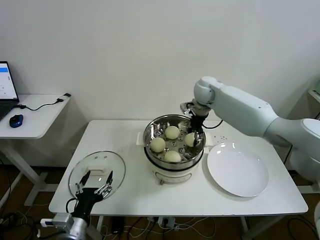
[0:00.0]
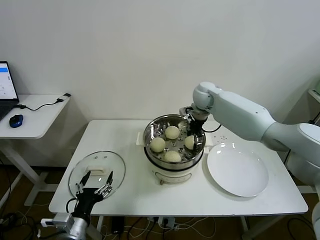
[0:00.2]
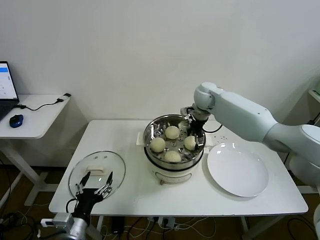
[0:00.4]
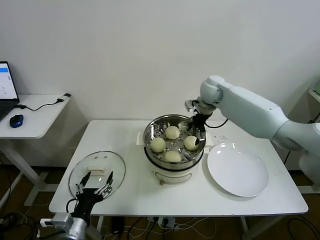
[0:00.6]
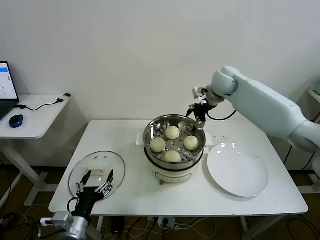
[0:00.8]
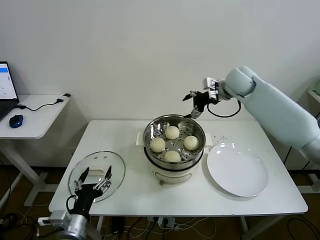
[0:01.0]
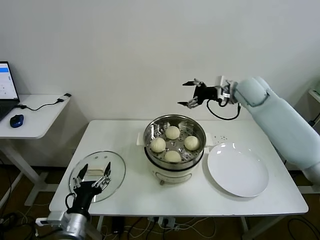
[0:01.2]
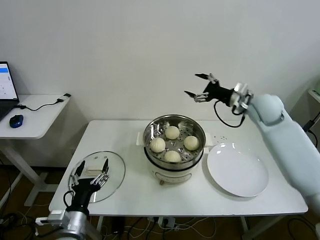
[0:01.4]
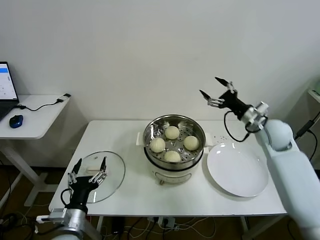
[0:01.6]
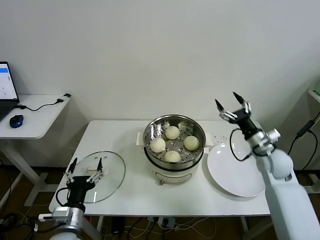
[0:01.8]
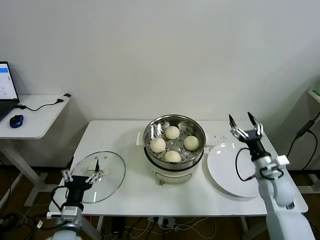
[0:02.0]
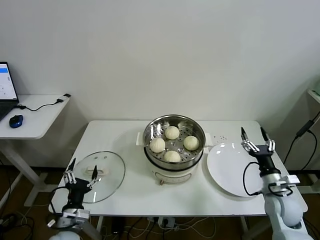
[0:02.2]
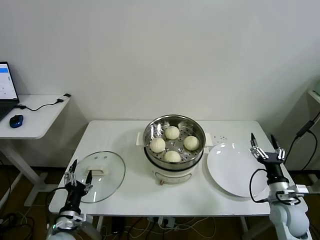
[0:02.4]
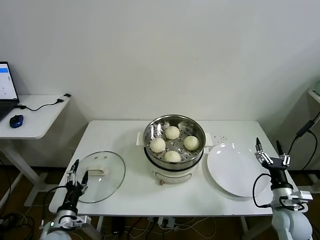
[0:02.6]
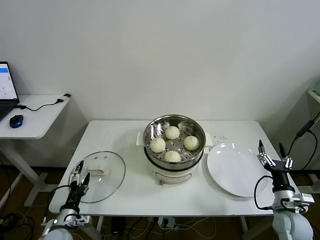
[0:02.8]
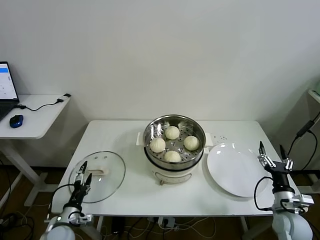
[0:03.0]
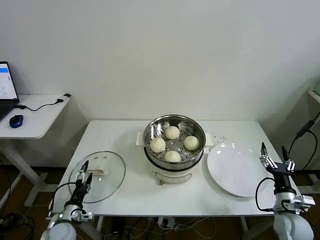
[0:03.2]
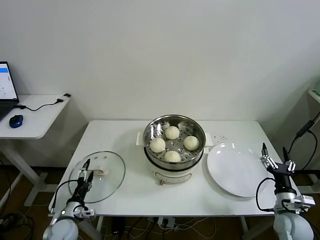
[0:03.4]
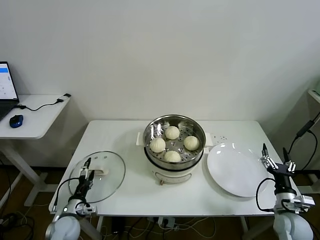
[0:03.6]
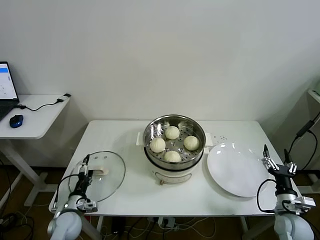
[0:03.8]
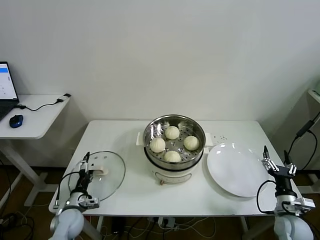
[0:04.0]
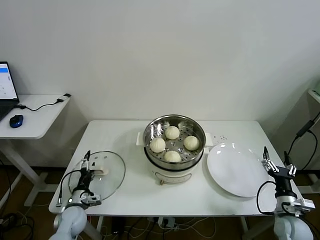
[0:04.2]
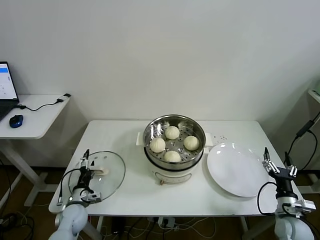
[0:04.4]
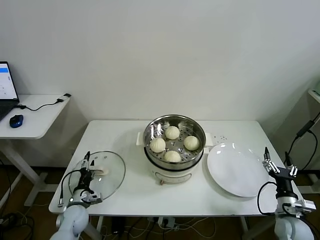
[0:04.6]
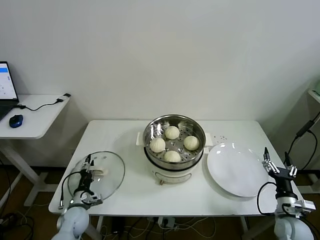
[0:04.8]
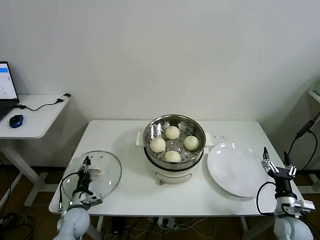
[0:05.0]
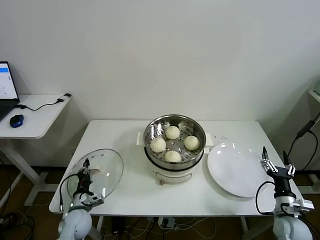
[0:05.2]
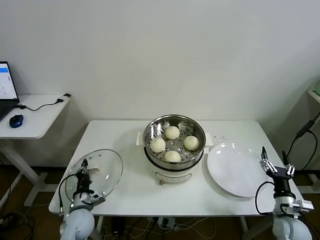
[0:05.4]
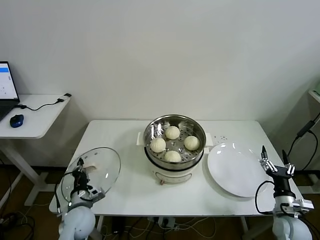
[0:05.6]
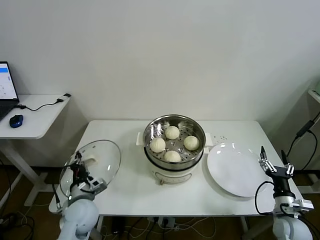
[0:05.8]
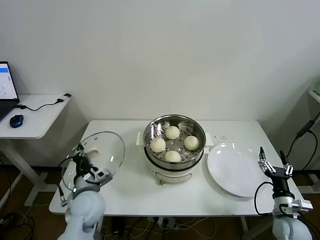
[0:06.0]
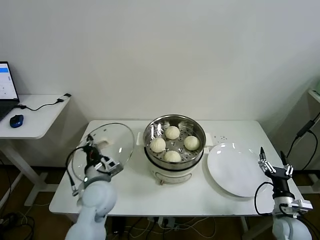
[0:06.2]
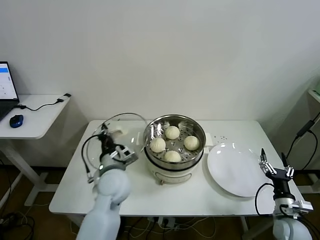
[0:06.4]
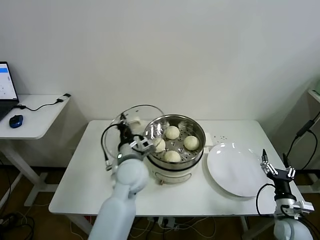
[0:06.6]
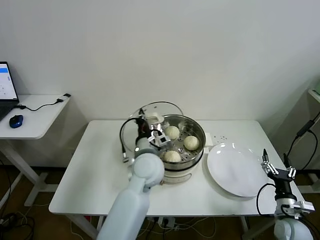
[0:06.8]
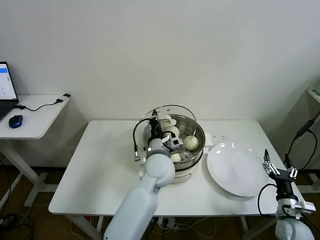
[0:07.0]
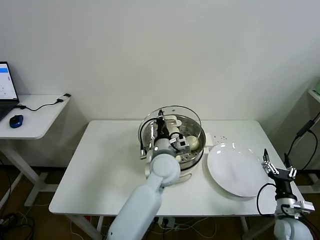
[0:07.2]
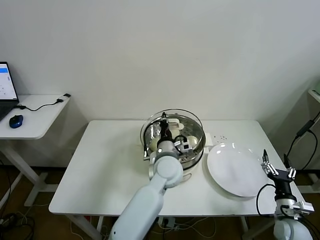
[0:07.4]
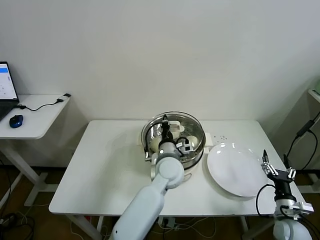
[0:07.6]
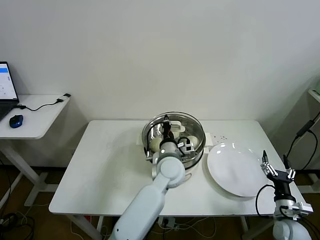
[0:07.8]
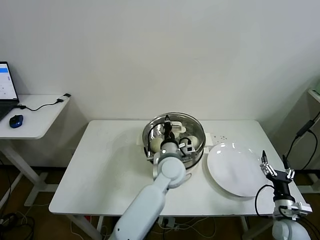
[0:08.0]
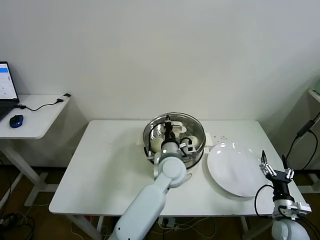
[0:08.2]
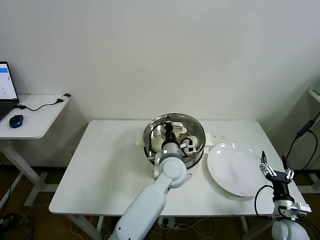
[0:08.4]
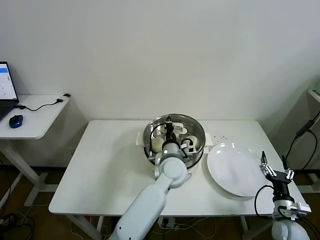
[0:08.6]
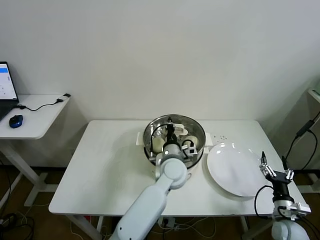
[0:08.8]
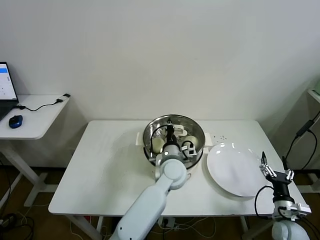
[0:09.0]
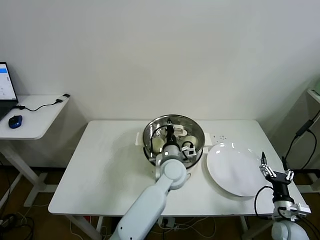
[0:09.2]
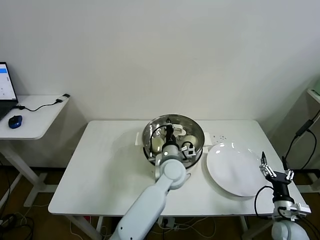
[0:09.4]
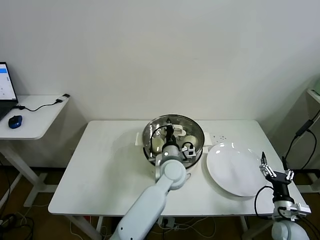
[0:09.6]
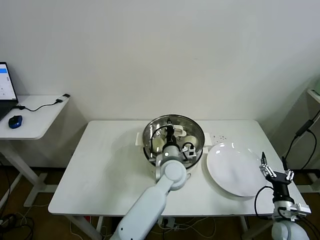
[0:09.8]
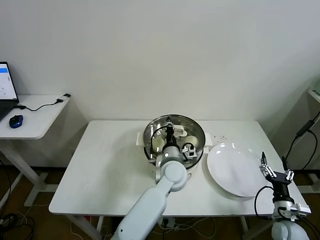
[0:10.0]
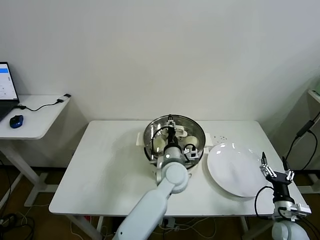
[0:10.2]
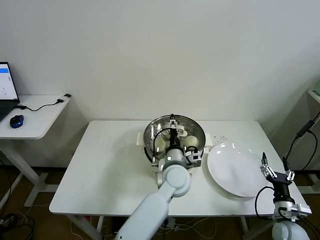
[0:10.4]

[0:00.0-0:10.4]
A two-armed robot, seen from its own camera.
Task of the whole recording: take steamed baozi put them in steamer then cover it.
Step, 0:01.2 to 0:05.2: Grasp the pot lid with left gripper.
0:00.0 to 0:01.4: The right gripper is displaced to the right and backward by approximately 20 cm, and opens up.
0:01.4 to 0:03.0: The left gripper travels downward and to the left by roughly 15 cm. Meanwhile the right gripper heads downward and backward, covering some 35 cm.
0:03.0 to 0:04.4: The left gripper goes about 10 cm forward.
0:04.4 to 0:06.0: The left gripper is displaced upward and to the right by roughly 20 cm, and closes.
0:06.0 to 0:07.4: The left gripper is displaced to the right by about 25 cm.
0:07.4 to 0:09.0: The grippers make only small movements.
0:09.0 to 0:10.4: The left gripper opens its fingers.

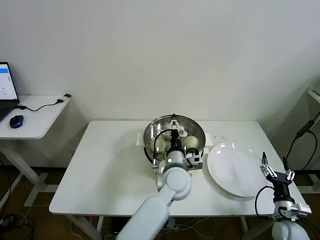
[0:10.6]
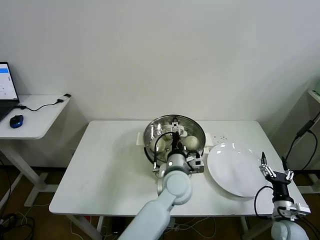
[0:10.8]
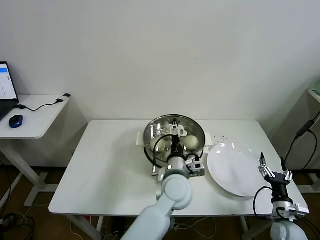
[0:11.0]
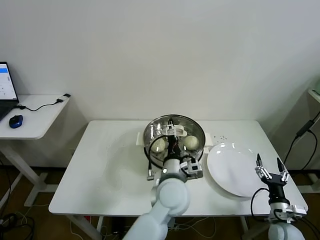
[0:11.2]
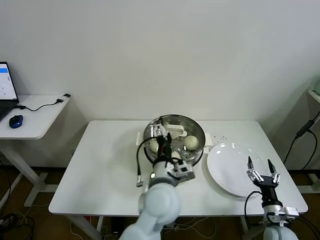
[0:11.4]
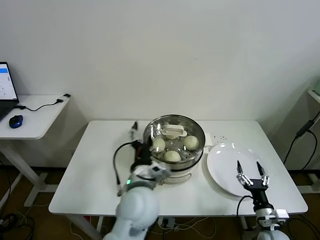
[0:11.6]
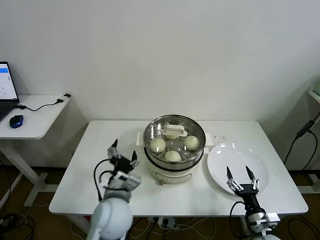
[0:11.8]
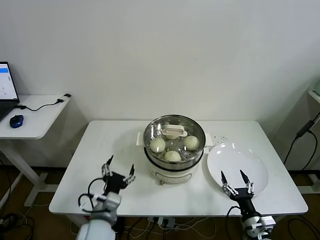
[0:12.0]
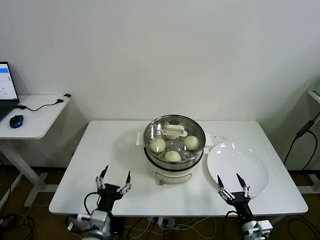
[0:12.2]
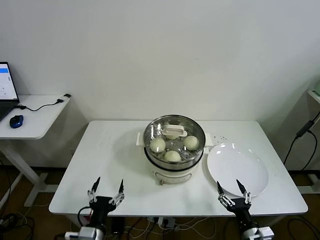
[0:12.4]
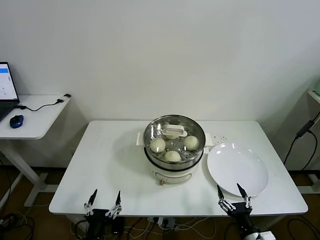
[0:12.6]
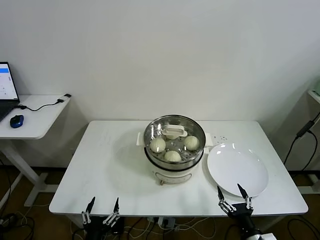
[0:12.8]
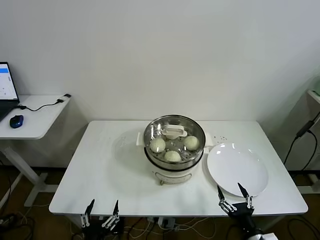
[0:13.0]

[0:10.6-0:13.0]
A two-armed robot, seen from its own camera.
Task of the whole recording: take steamed baozi put them in steamer then cover it.
0:10.6 to 0:11.8: The right gripper moves to the left, approximately 5 cm; the left gripper shifts approximately 20 cm to the left and backward.
0:11.8 to 0:13.0: The right gripper shifts approximately 10 cm backward; the left gripper goes some 25 cm backward, downward and to the left.
